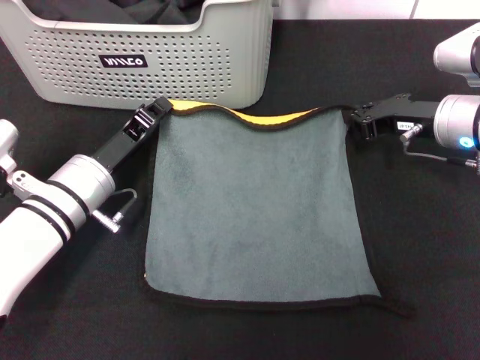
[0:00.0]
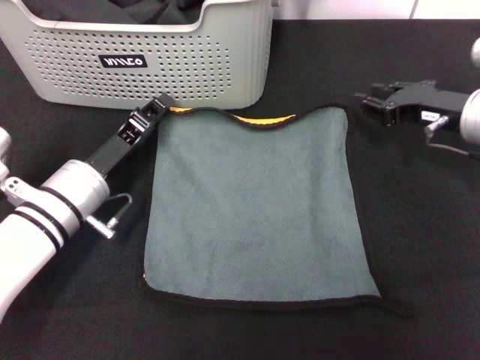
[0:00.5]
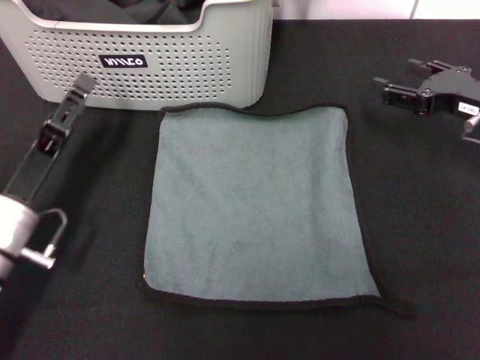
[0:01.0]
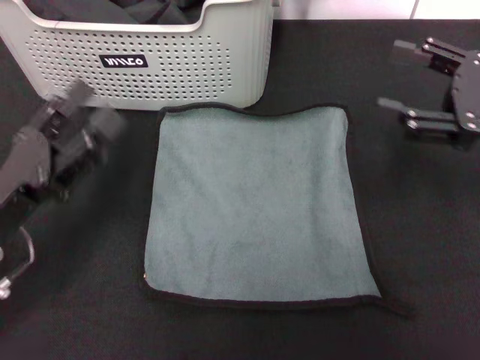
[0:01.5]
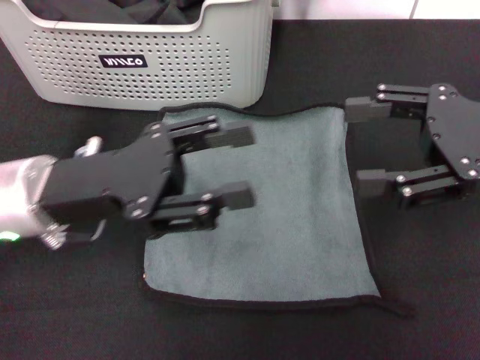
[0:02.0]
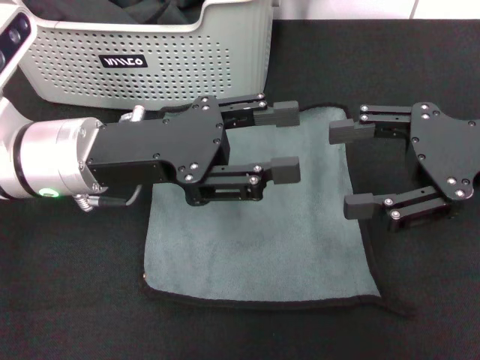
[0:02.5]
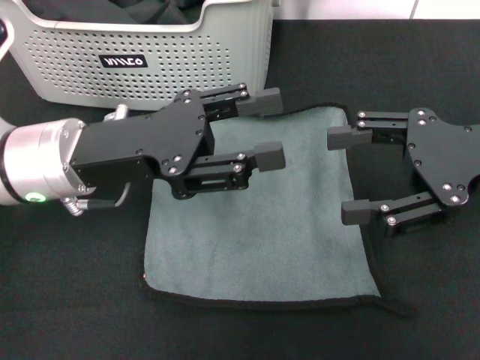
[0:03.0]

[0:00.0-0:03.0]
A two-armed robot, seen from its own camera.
Task of the whole recording: pick up the towel from the storage box and lay it flat on the black tablecloth.
0:00.0 to 0:01.5: The right gripper is displaced backward, upward and to the right by approximately 10 cm, and opens up, while the left gripper goes about 15 cm backward, to the left and upward, and opens its fingers.
0:01.5 to 0:03.0: The left gripper moves forward, to the right and upward, about 15 cm, while the right gripper shifts by roughly 5 cm.
